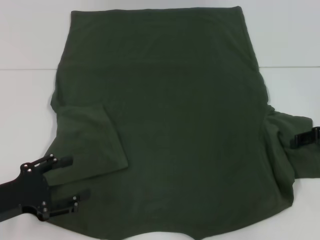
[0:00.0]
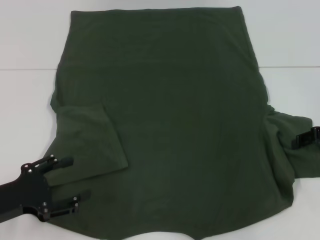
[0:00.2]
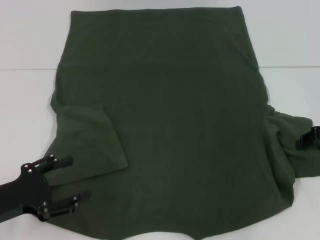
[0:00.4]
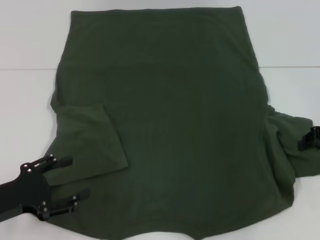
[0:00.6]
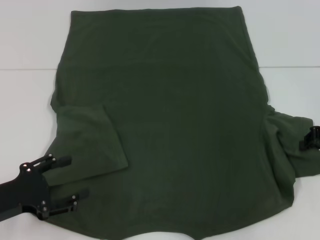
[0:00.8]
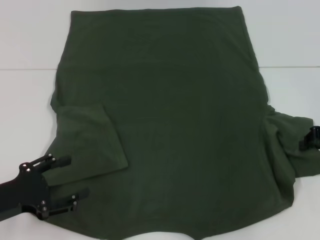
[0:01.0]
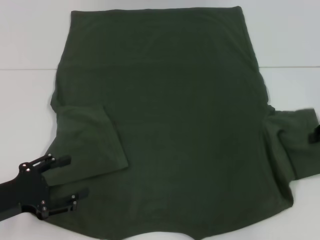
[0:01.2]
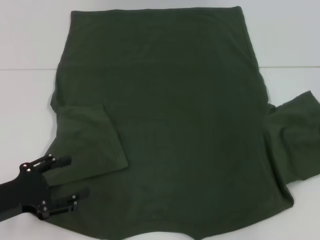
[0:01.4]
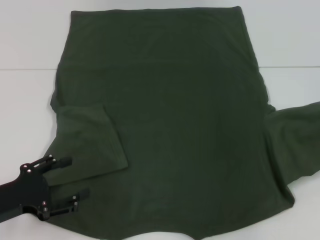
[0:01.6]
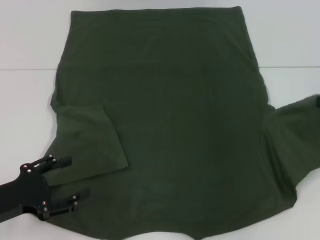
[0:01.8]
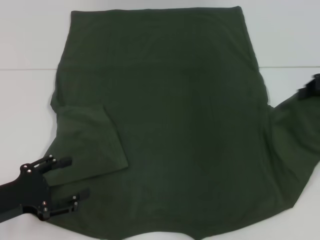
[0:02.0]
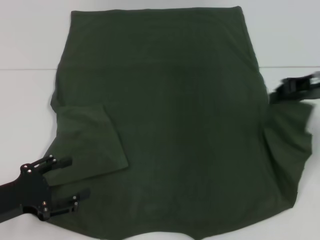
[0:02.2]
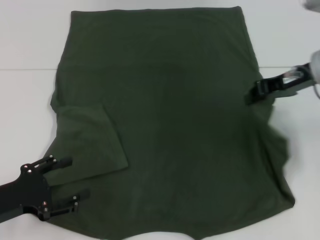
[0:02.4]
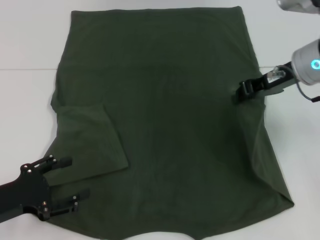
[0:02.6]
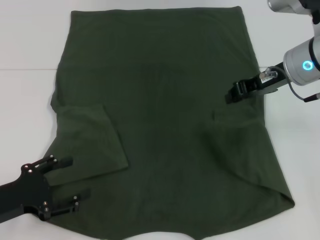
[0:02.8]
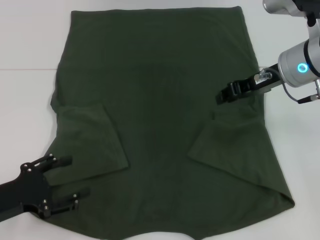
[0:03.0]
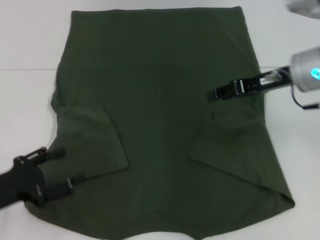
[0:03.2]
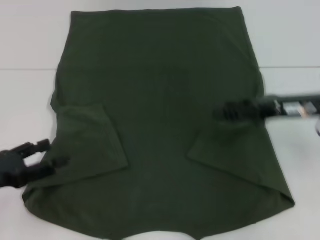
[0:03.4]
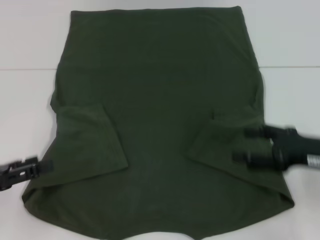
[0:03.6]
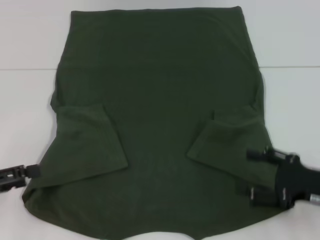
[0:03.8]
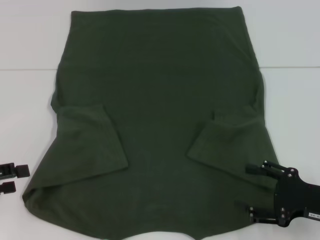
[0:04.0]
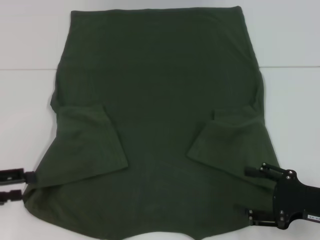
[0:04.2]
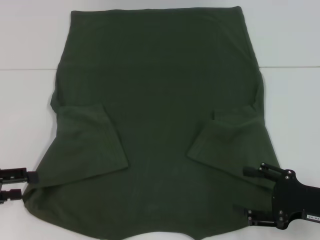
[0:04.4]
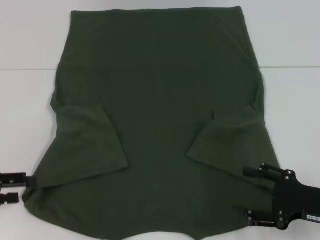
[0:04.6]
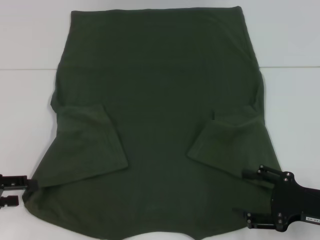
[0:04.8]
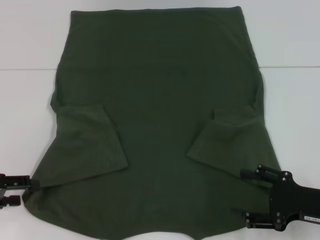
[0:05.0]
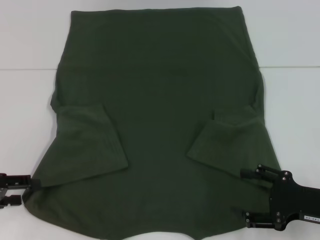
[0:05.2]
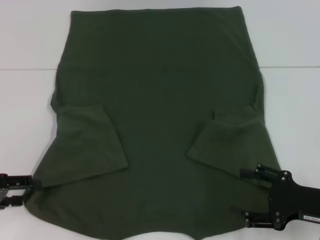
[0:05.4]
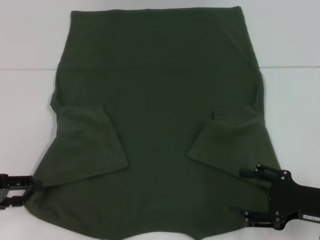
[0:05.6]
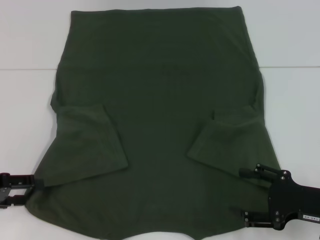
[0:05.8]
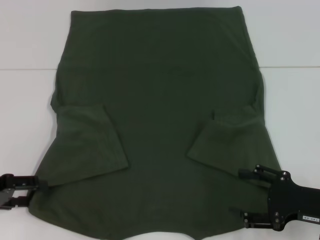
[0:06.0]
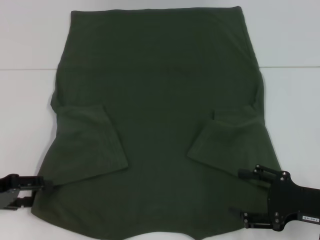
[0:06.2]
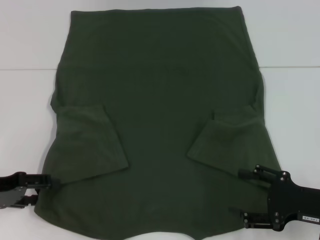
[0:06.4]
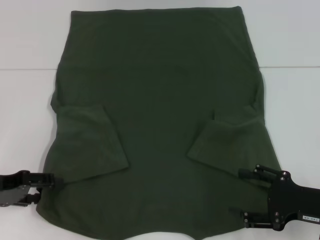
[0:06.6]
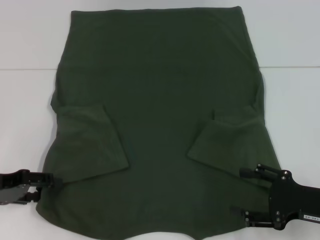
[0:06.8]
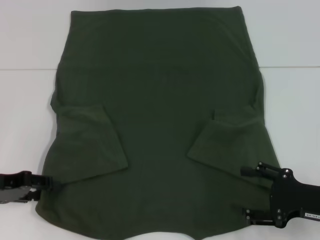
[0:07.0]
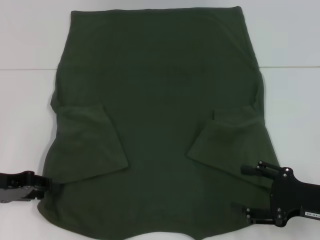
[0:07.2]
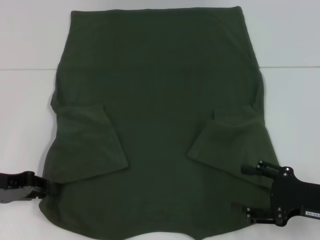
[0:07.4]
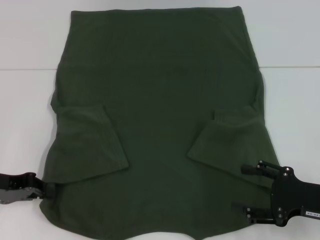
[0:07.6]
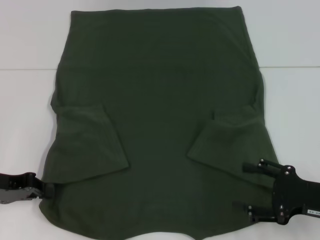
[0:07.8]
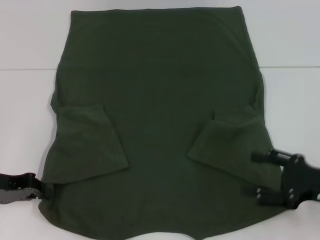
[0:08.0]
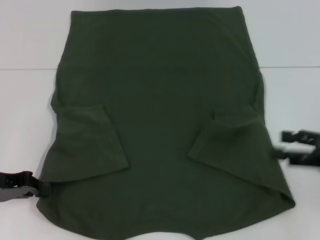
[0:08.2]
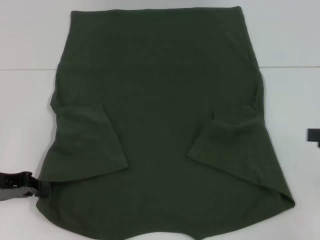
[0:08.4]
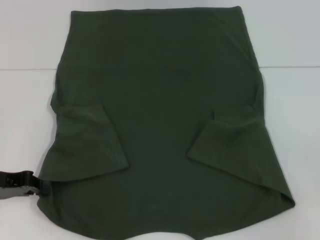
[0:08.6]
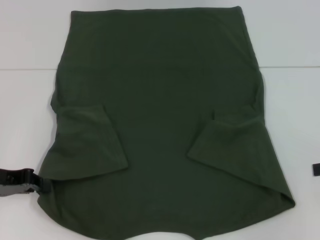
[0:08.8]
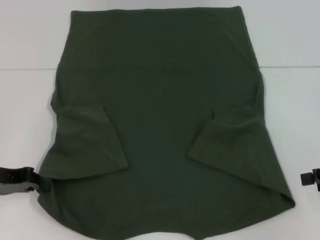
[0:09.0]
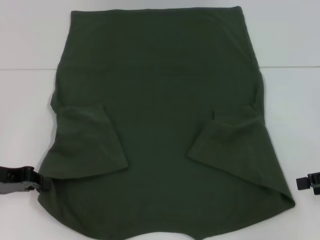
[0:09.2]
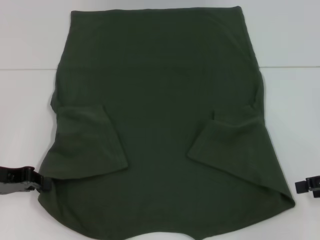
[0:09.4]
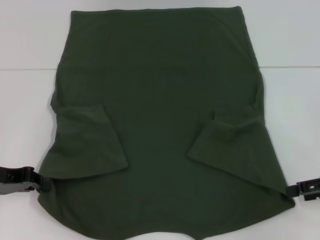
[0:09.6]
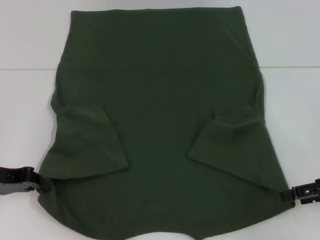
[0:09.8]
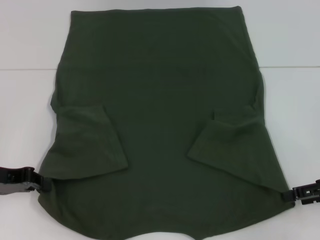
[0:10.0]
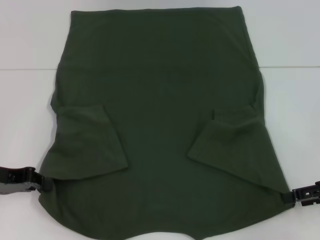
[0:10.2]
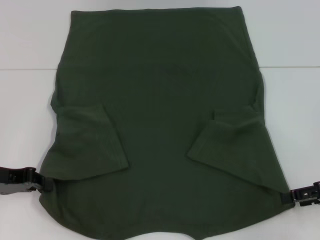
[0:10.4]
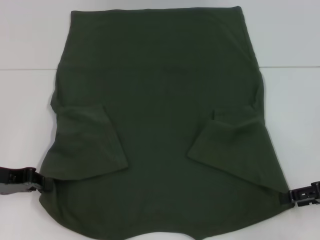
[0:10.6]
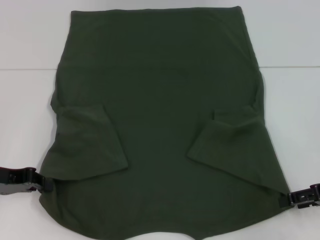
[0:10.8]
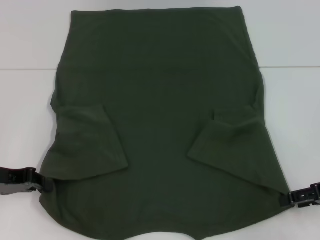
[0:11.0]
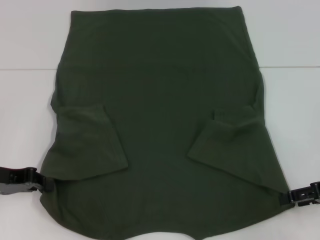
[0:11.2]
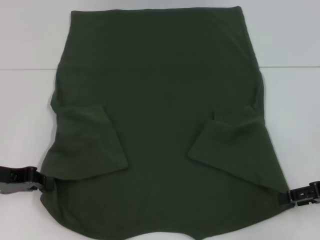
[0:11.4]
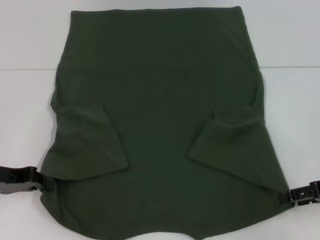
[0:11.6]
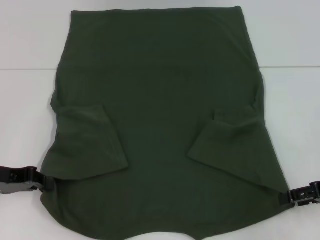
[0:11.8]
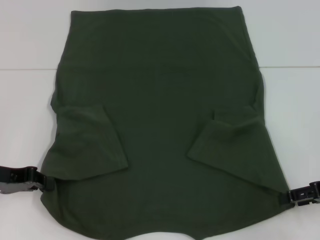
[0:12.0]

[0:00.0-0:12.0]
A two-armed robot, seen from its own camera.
Step, 0:00.0 to 0:02.8: Fold the bottom right sleeve with your right hand.
Step, 0:03.0 to 0:07.8: Grab the bottom left corner with your left hand.
0:00.0 to 0:01.6: The right gripper heads upward, covering about 5 cm, and closes its fingers.
0:01.6 to 0:03.0: The right gripper is displaced to the left by roughly 15 cm.
0:03.0 to 0:04.4: The left gripper goes roughly 5 cm to the left. Meanwhile the right gripper is displaced backward, downward and to the right by some 25 cm, and opens its fingers.
0:04.4 to 0:06.0: There are only small adjustments of the grippers.
0:06.0 to 0:07.6: The left gripper closes its fingers.
0:07.6 to 0:09.0: The right gripper moves to the right and upward, roughly 10 cm.
0:09.0 to 0:10.4: The grippers stay close to where they were, moving slightly.
0:10.4 to 0:12.0: Neither gripper changes place.

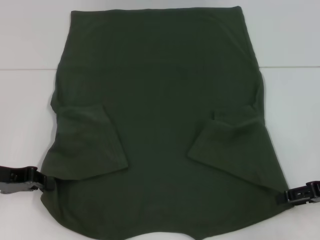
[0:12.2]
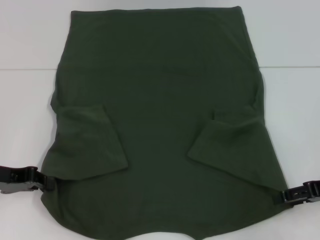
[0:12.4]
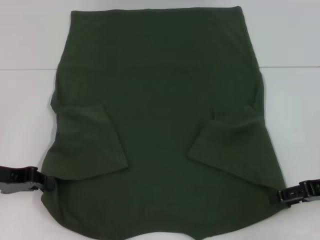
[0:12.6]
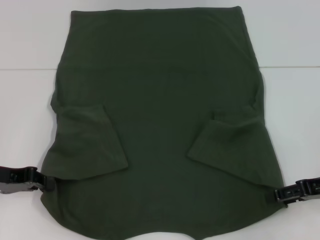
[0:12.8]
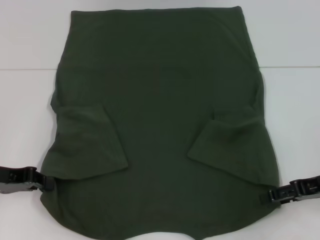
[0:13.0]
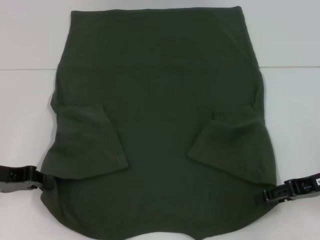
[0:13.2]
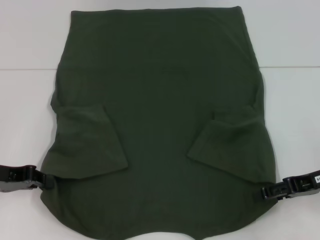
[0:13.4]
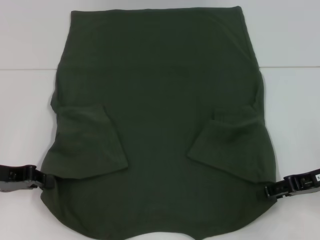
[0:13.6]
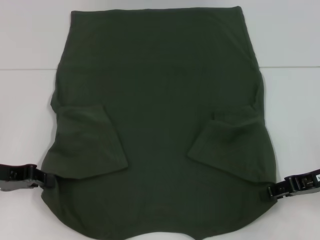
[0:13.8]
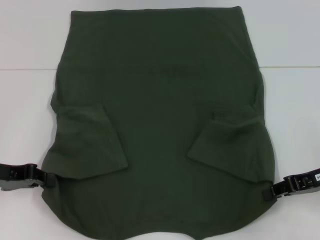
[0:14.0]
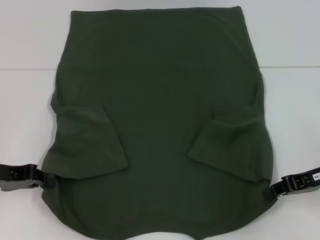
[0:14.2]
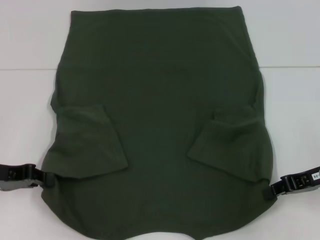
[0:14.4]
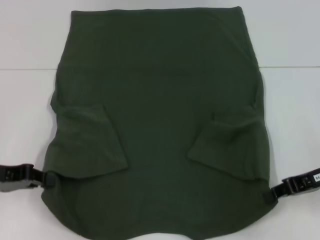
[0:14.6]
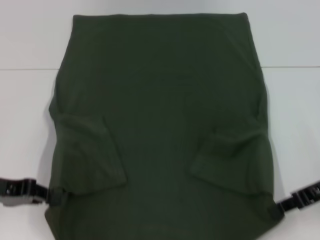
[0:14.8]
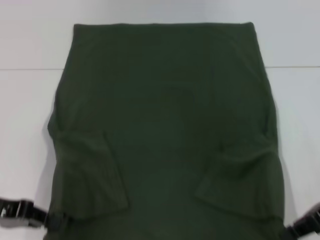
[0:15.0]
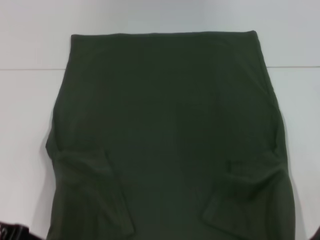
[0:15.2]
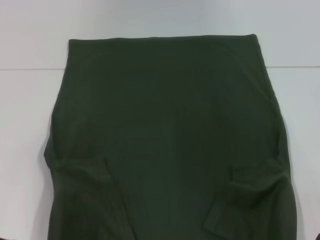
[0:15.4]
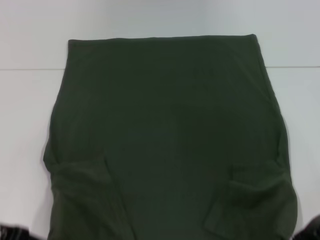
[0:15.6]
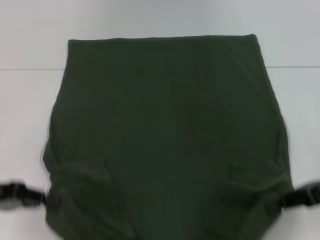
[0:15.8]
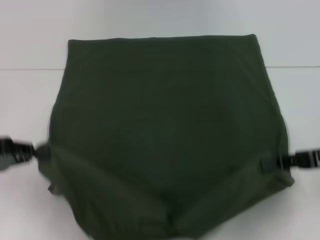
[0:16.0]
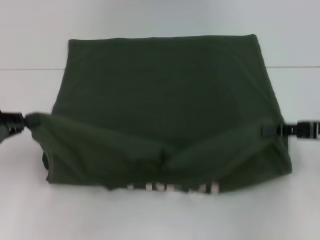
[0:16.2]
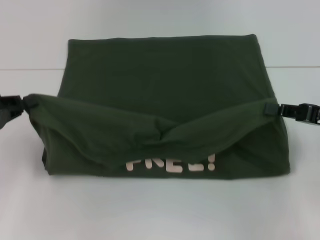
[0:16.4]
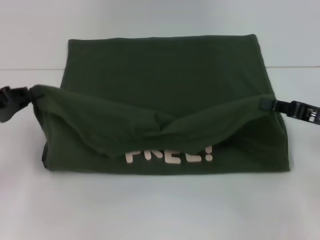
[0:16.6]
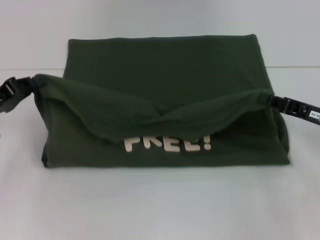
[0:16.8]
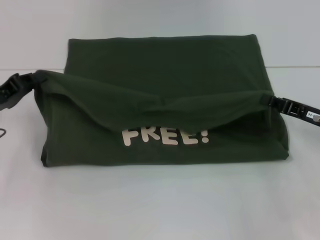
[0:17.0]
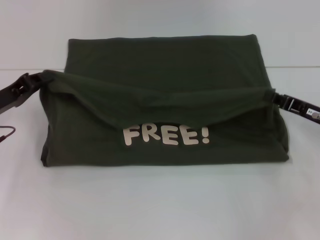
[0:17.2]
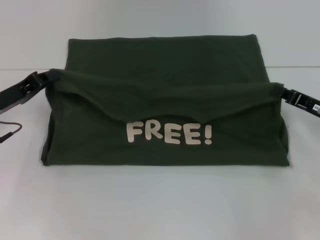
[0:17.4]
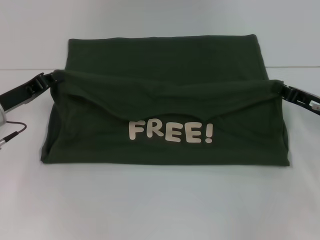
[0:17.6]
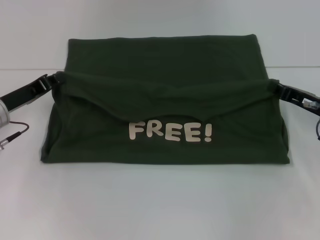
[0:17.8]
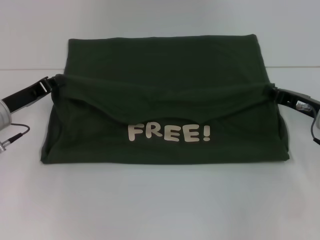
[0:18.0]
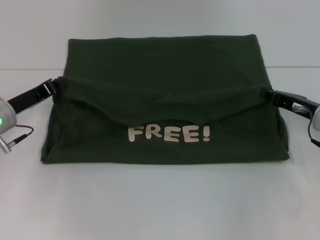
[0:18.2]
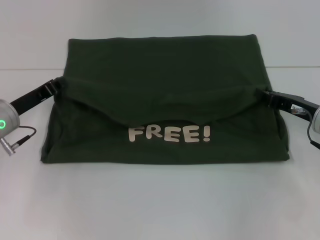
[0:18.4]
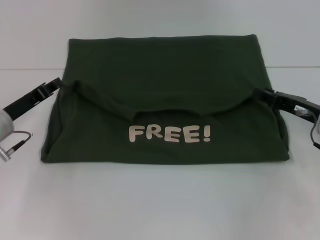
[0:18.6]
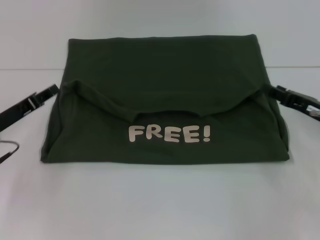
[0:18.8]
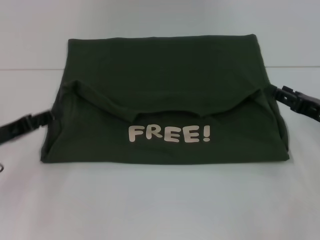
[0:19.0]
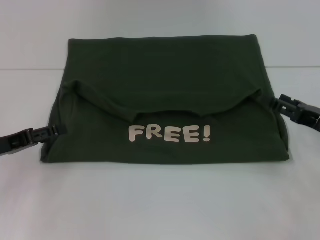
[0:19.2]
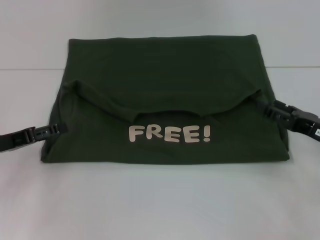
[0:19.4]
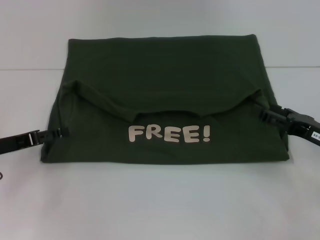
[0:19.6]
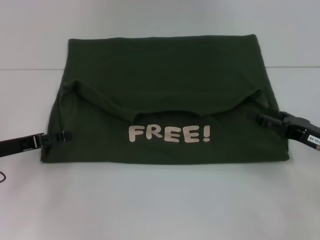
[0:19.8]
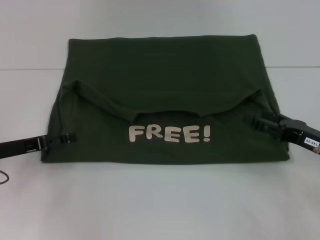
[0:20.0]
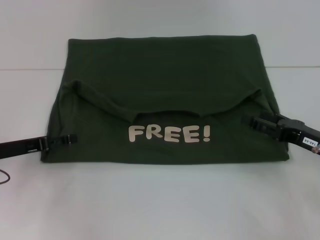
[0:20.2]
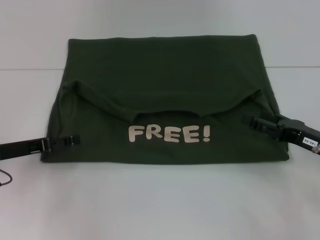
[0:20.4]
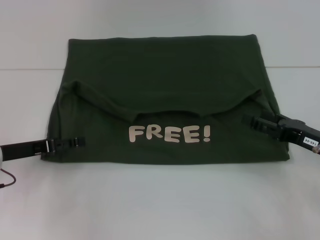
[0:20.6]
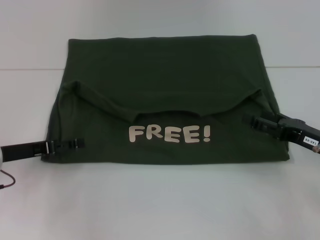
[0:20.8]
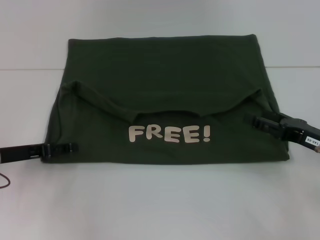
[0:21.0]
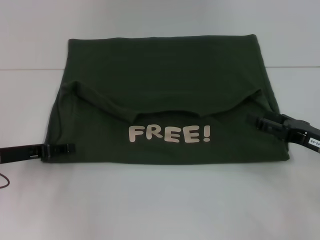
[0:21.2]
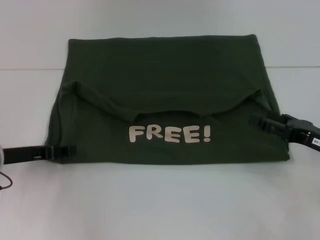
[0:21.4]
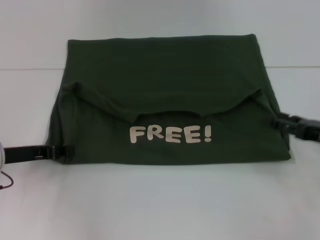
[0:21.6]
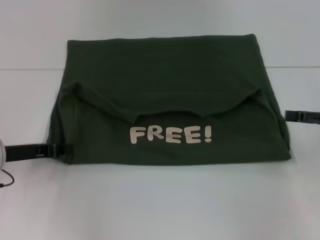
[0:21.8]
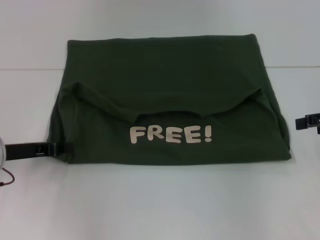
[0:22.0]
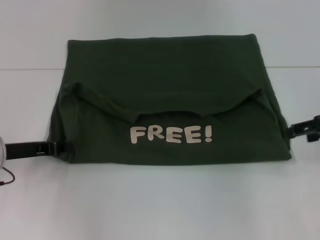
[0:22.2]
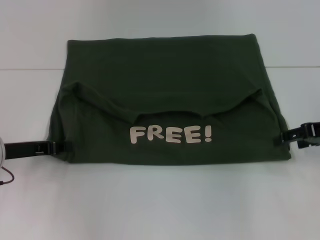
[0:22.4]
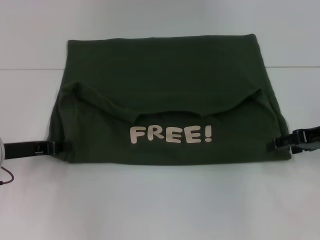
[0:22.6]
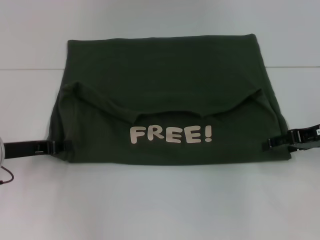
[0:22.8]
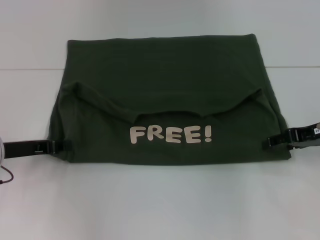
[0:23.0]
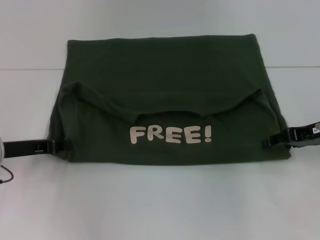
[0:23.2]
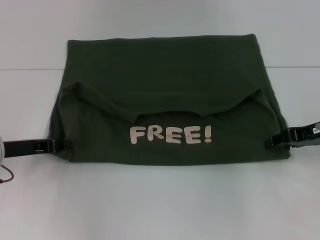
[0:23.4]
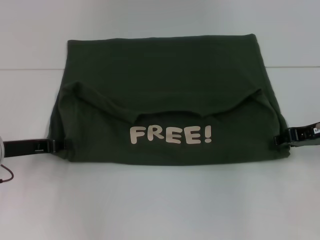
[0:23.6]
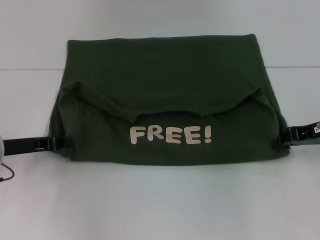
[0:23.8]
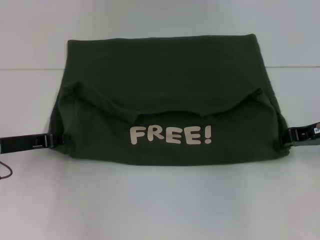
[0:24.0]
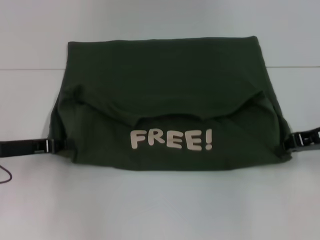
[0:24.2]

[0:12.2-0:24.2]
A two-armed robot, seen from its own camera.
Step, 0:13.2 to 0:18.6: Fold the clothes with your left hand.
Step, 0:13.2 to 0:18.6: Fold the clothes with your right hand.
0:12.2 to 0:13.8: There are only small adjustments of the grippers.
0:13.8 to 0:15.2: The right gripper closes its fingers; the left gripper shifts roughly 5 cm backward.
0:15.2 to 0:16.6: The left gripper travels forward by roughly 5 cm.
0:16.6 to 0:18.2: The right gripper is displaced forward by roughly 5 cm. The left gripper shifts approximately 10 cm to the right and forward.
0:18.2 to 0:19.8: The right gripper goes some 5 cm backward, and opens. The left gripper shifts by roughly 5 cm, and opens.
0:19.8 to 0:21.2: The grippers make only small movements.
0:21.2 to 0:22.6: The right gripper goes roughly 10 cm forward and upward. Meanwhile the left gripper closes up.
0:22.6 to 0:24.2: The right gripper closes up.
